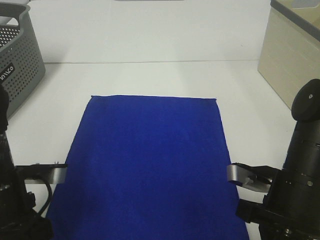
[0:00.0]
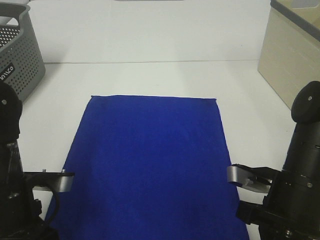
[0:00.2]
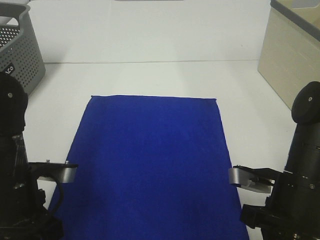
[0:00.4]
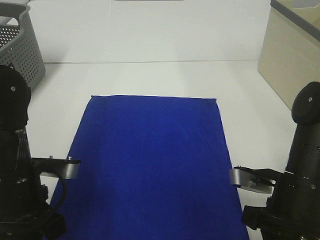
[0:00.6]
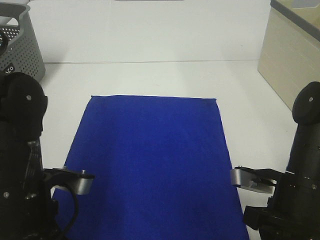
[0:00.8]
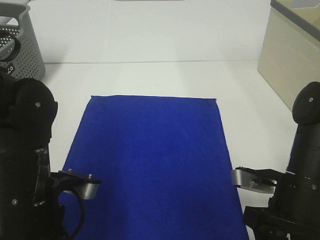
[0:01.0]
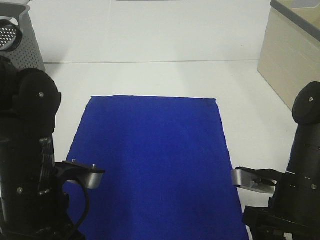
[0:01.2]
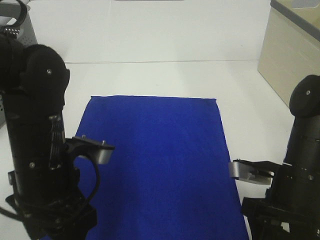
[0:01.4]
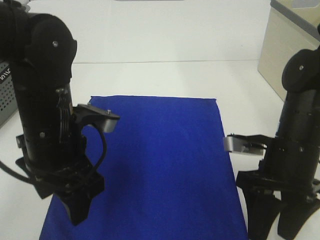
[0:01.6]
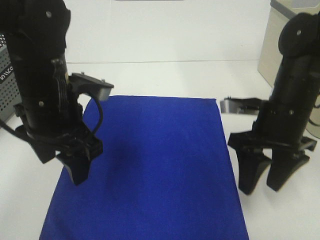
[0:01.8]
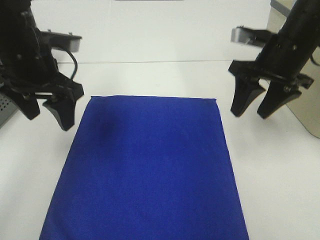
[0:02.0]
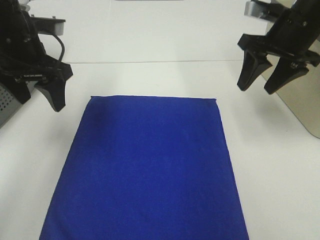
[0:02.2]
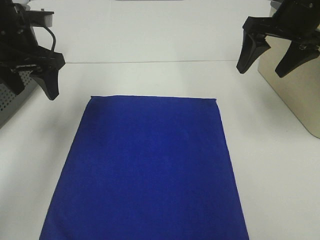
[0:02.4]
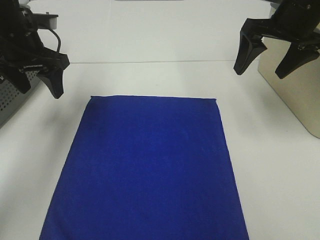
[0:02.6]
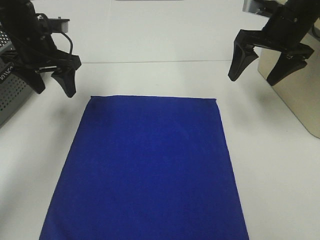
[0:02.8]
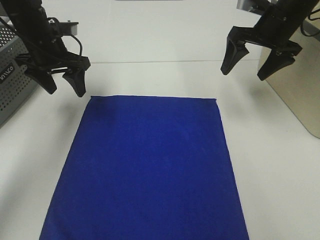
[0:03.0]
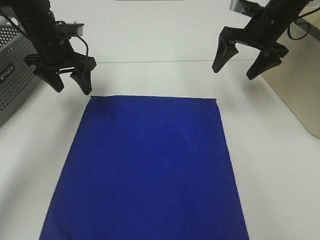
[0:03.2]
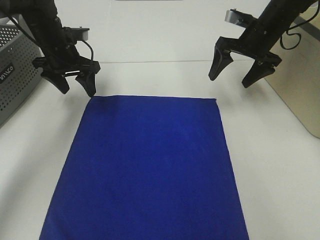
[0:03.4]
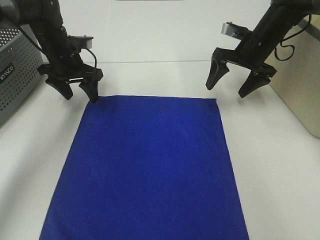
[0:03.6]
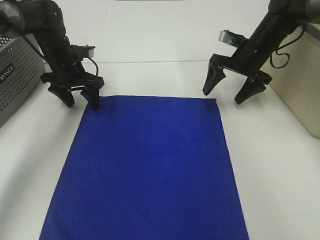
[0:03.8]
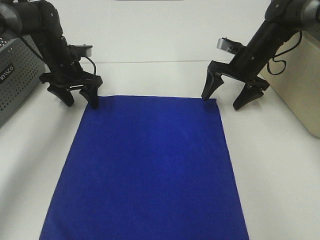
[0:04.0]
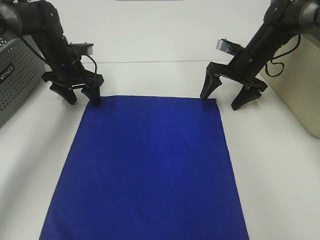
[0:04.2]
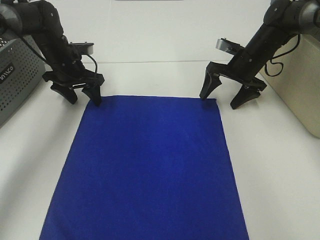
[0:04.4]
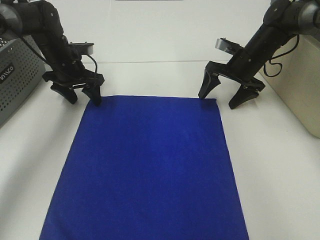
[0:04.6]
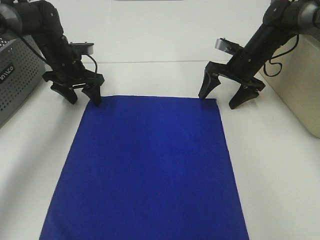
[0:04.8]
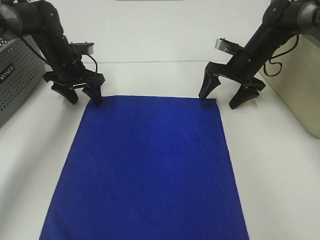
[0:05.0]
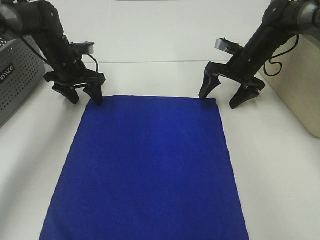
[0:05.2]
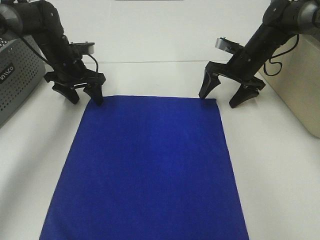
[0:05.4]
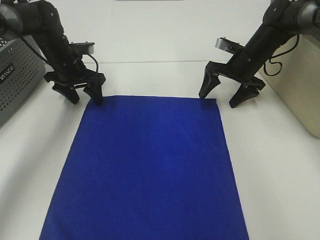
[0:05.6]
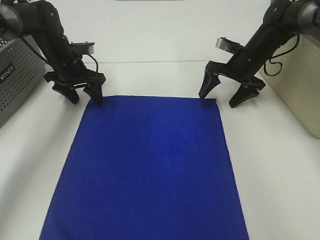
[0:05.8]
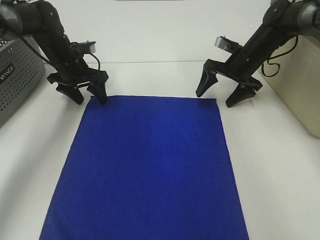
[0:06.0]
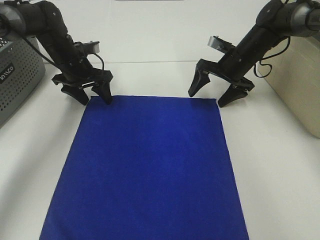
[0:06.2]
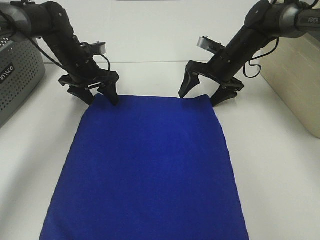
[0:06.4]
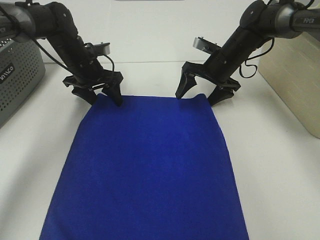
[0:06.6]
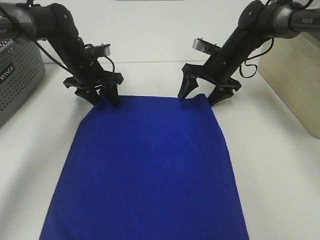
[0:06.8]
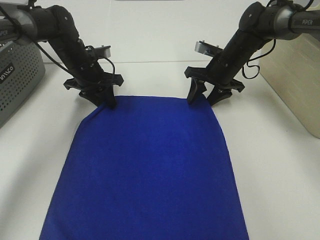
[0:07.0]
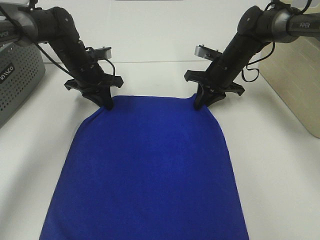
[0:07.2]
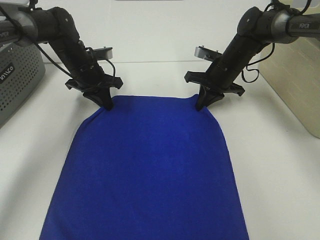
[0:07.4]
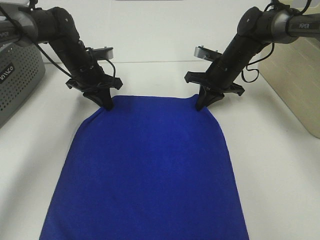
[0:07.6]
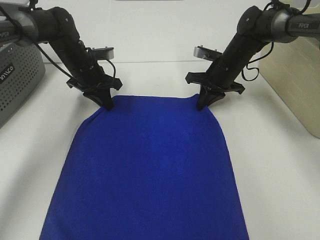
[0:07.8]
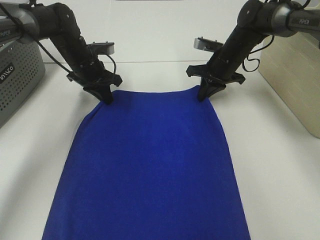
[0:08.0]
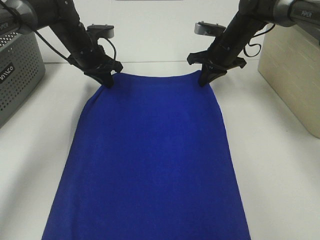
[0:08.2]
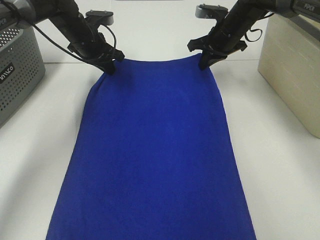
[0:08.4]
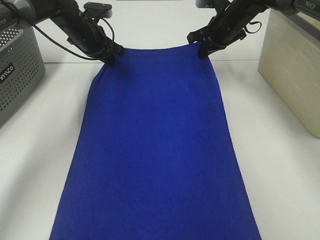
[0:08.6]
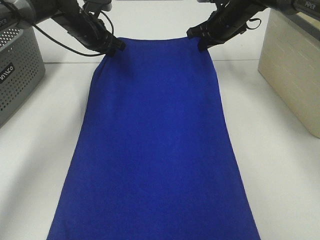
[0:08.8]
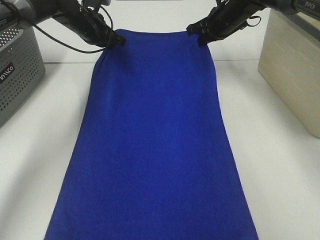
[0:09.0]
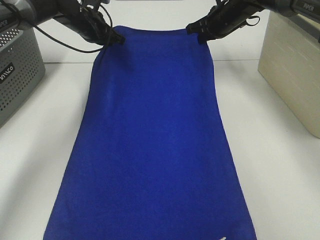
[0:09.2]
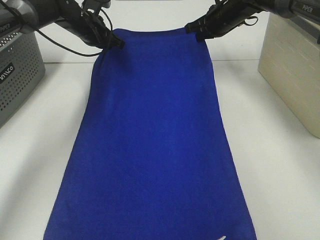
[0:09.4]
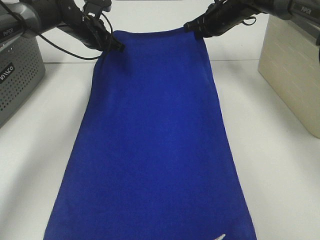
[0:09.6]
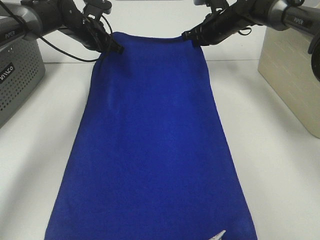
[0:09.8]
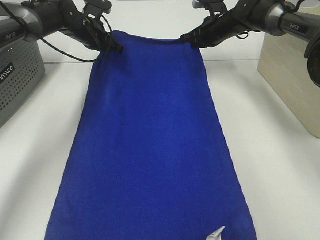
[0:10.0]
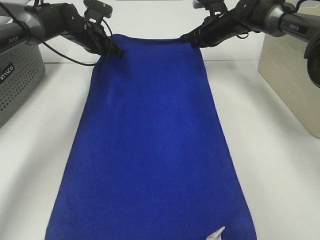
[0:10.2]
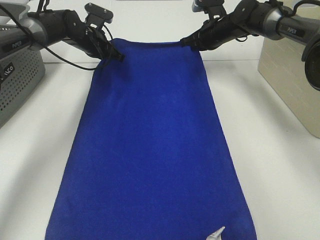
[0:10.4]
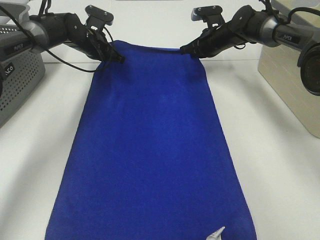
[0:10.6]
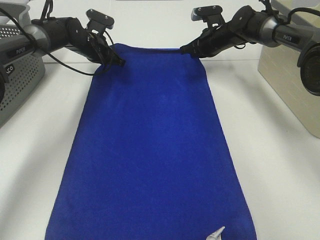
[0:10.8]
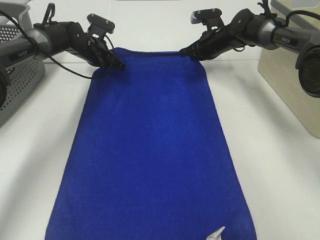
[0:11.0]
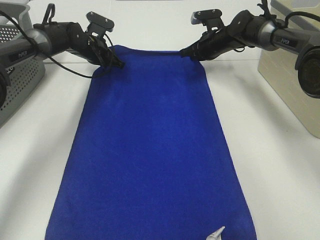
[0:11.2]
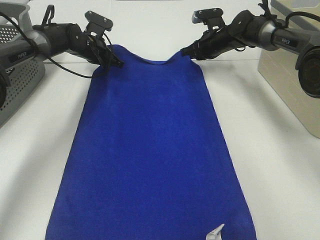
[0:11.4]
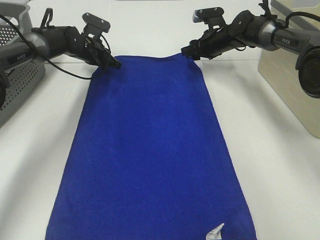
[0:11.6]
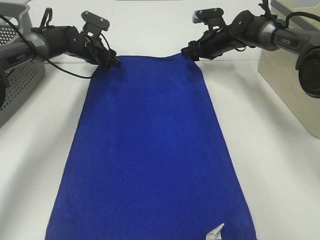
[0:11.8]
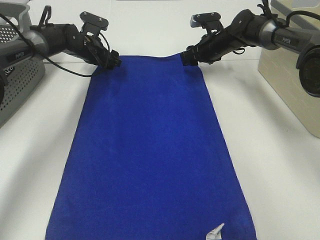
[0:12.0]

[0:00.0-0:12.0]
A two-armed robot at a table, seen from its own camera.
Task of the whole recording: Remove the towel and place it.
Step, 0:00.0 to 0:04.4: Left hand:adjust the blue towel.
Step, 0:00.0 to 0:04.4: Right hand:adjust the blue towel.
0:00.0 to 0:01.6: The right gripper opens. The left gripper heads to the right and forward, covering roughly 10 cm, and opens its fingers.
0:01.6 to 0:03.0: The right gripper heads forward and upward, covering about 25 cm. The left gripper moves forward and to the left, approximately 25 cm.
0:03.0 to 0:04.4: The right gripper is displaced downward by roughly 10 cm. The left gripper is displaced downward and forward by approximately 10 cm.
0:04.4 to 0:06.0: The grippers make only small movements.
0:06.0 to 0:07.6: The right gripper closes its fingers; the left gripper closes up.
0:07.6 to 0:09.0: The two grippers go about 10 cm upward and forward.
0:09.0 to 0:10.4: The right gripper heads downward, covering some 5 cm, while the left gripper shifts by some 5 cm.
0:10.4 to 0:12.0: The right gripper opens its fingers; the left gripper opens its fingers.

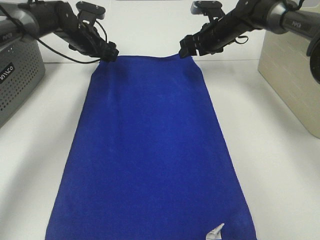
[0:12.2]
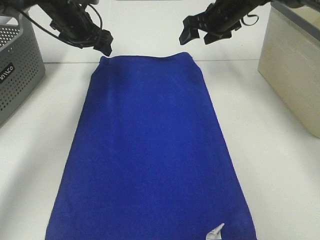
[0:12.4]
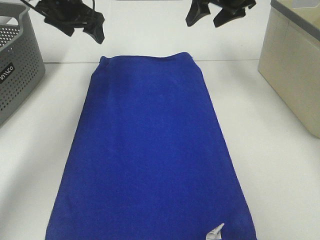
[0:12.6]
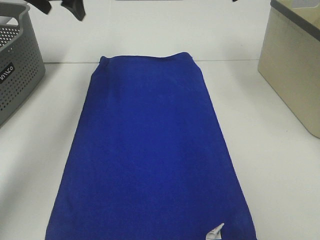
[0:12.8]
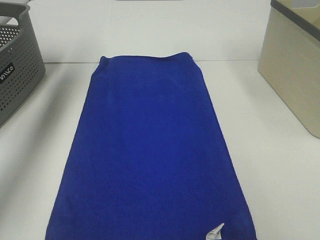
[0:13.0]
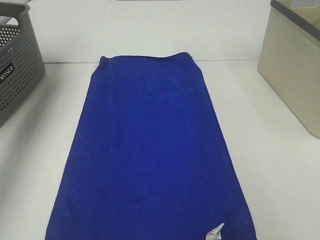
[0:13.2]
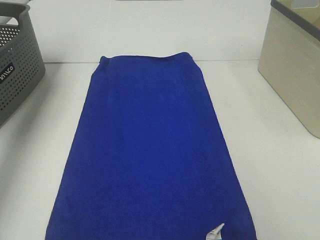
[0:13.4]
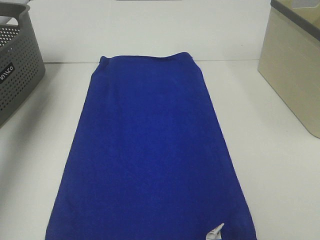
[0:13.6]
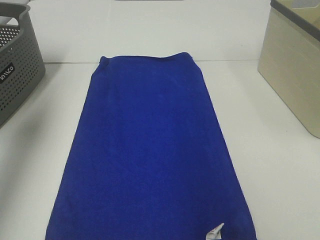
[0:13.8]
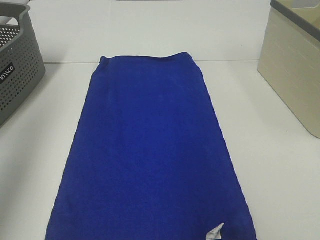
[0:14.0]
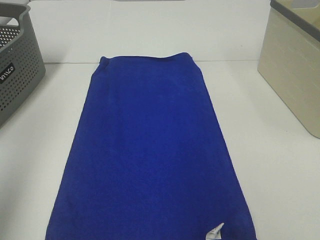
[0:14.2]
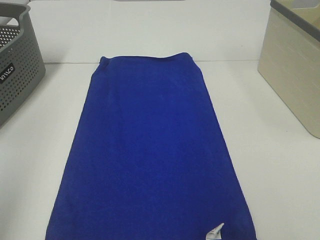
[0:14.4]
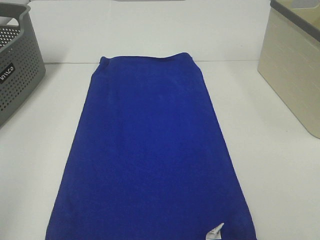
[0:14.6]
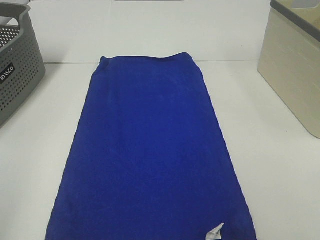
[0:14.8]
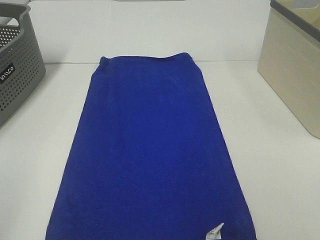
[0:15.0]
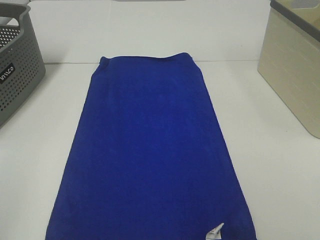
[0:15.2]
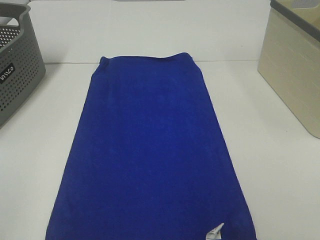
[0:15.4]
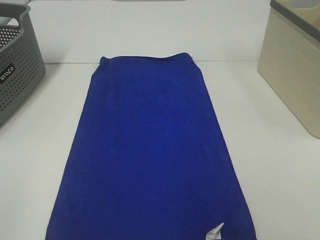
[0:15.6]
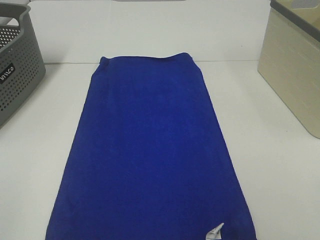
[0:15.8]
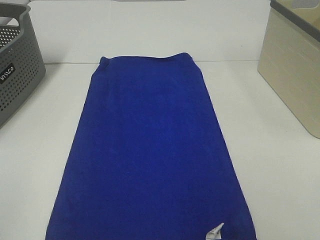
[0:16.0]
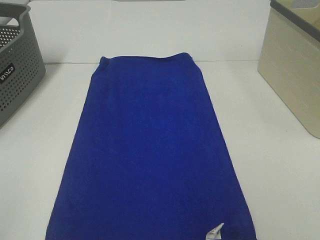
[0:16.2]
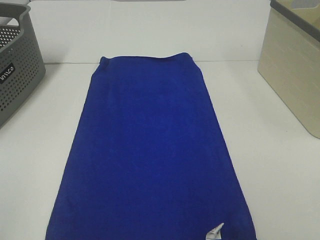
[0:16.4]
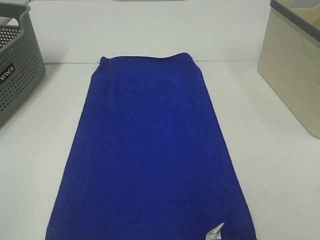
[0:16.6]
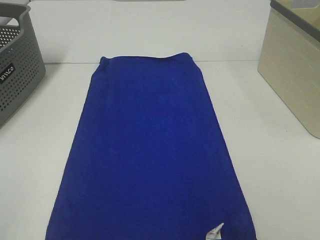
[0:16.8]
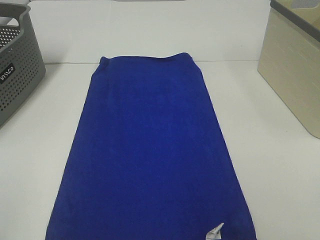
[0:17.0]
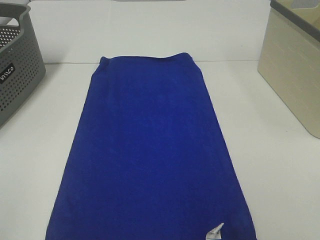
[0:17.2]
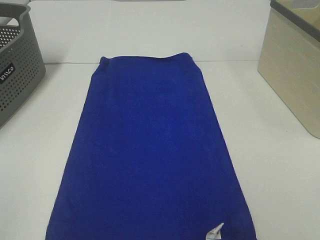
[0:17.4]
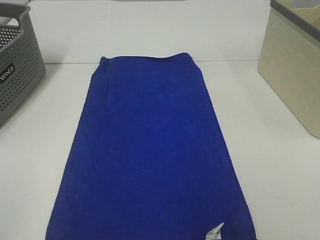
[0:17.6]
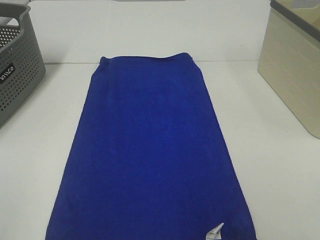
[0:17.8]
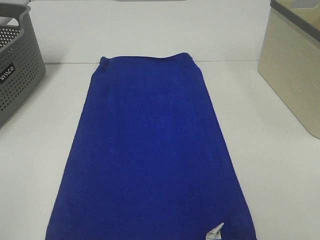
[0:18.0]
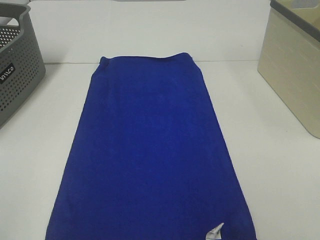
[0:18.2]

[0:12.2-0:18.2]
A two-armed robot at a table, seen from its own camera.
Task of the whole recording: Remove the towel and place it.
0:12.2 to 0:13.8: The right gripper is displaced backward and upward by approximately 40 cm, while the left gripper goes approximately 40 cm upward, backward and to the left.
0:13.8 to 0:15.2: The left gripper shifts roughly 30 cm backward.
0:16.6 to 0:18.2: Both grippers stay put.

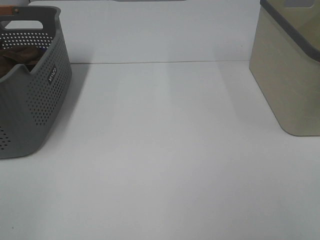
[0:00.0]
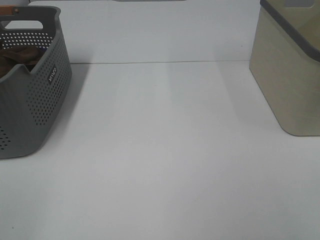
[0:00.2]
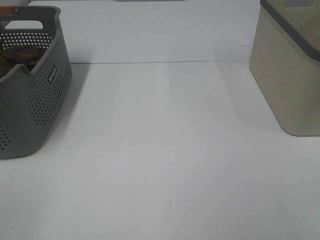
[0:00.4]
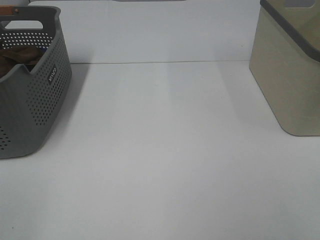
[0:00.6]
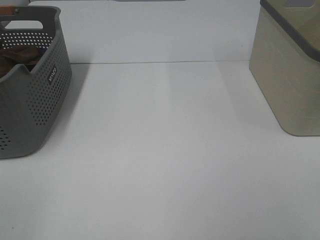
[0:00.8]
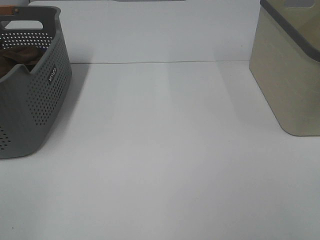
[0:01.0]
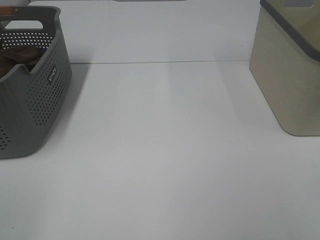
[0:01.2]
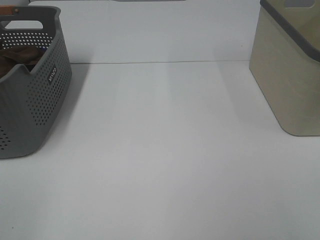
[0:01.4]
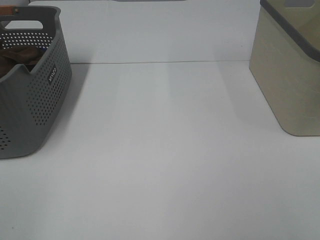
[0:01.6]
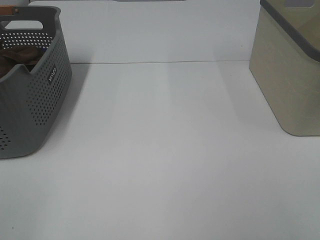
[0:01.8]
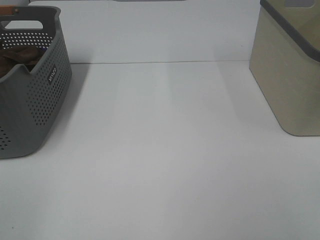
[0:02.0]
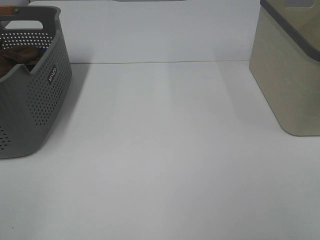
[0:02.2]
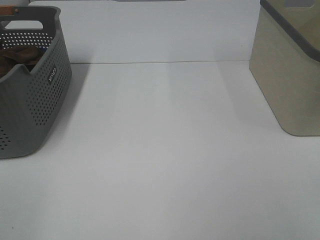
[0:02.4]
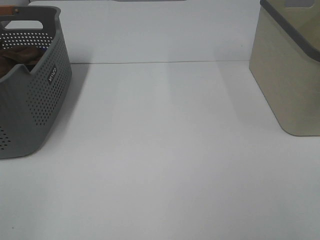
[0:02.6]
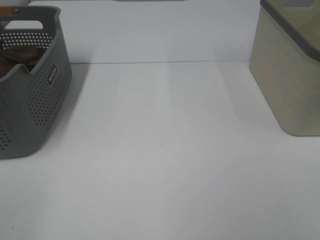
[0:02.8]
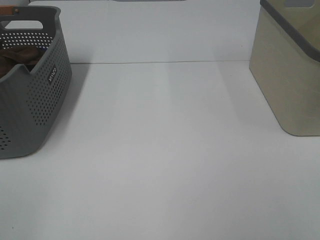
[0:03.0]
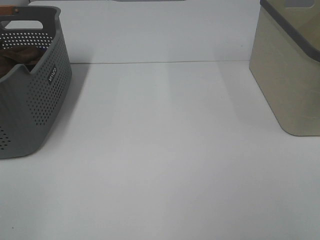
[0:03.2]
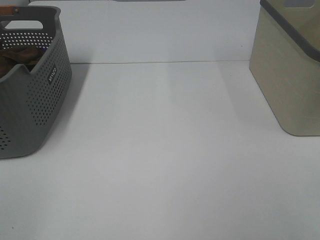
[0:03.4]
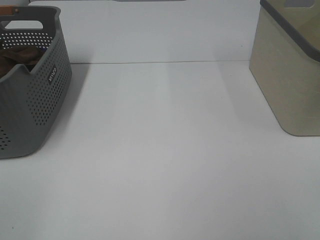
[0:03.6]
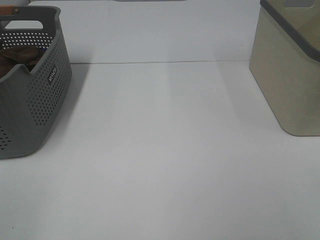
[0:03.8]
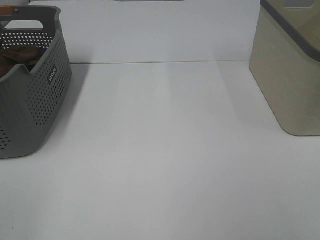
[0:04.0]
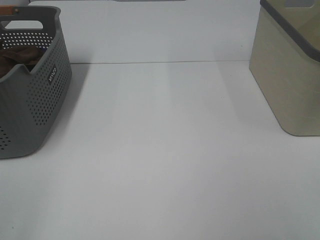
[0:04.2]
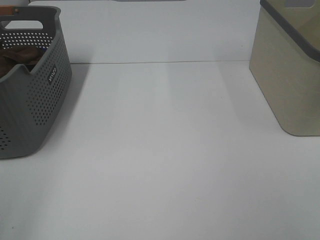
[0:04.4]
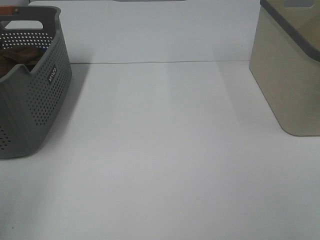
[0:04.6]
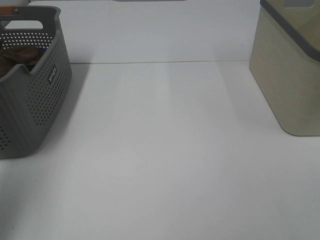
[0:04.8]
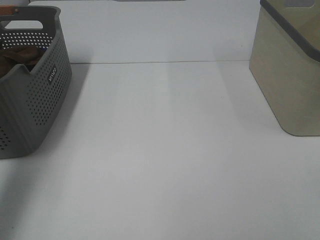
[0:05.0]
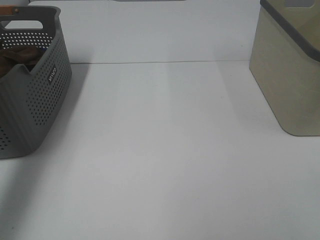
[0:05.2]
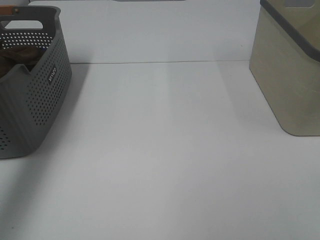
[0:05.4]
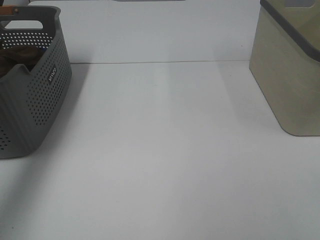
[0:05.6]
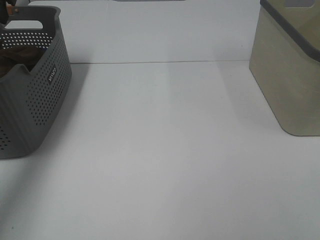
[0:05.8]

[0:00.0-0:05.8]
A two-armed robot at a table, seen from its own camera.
Task of the whole recording: Remove the towel and place it.
0:00.0 to 0:02.8: Both grippers stay put.
0:04.4 to 0:05.8: The left gripper moves forward, roughly 40 cm.
